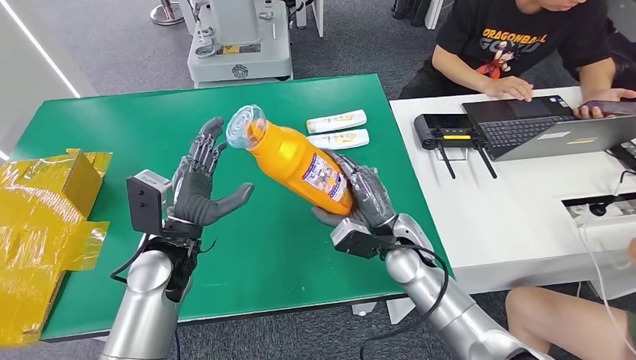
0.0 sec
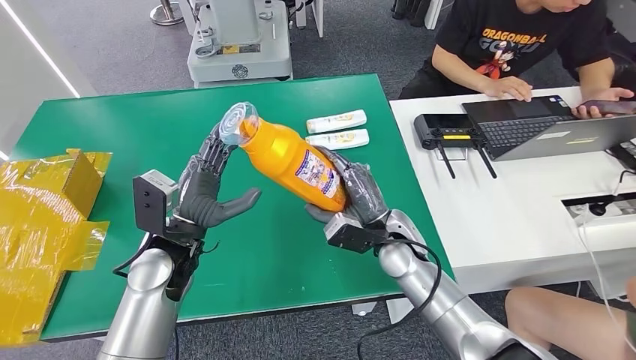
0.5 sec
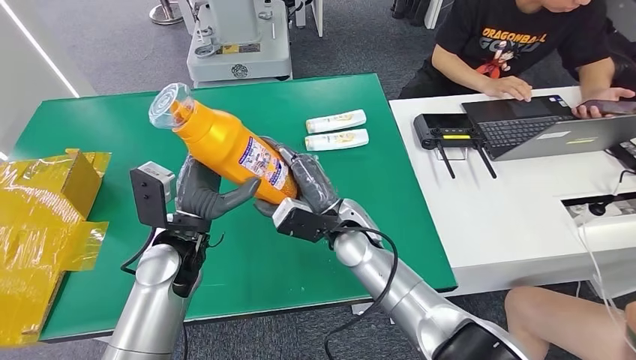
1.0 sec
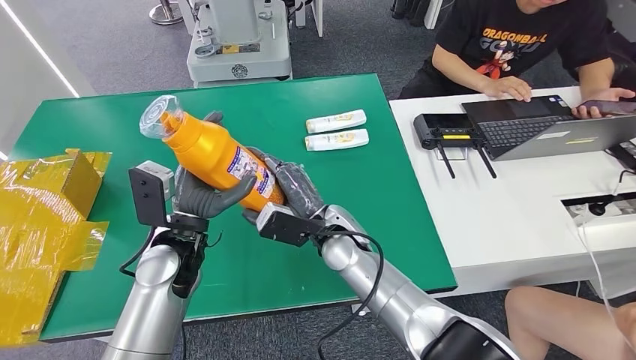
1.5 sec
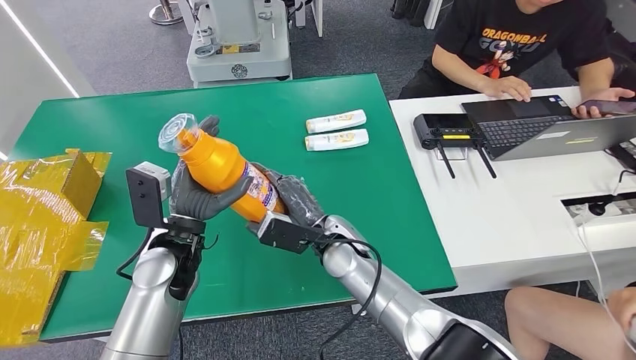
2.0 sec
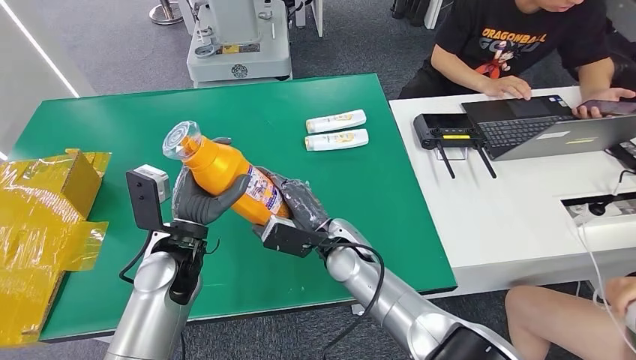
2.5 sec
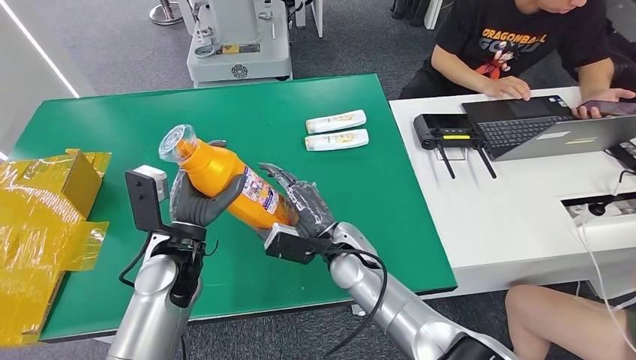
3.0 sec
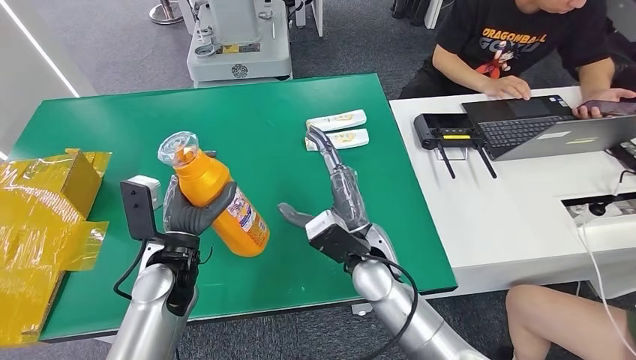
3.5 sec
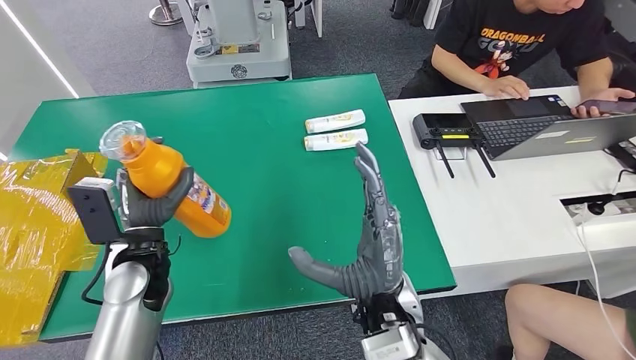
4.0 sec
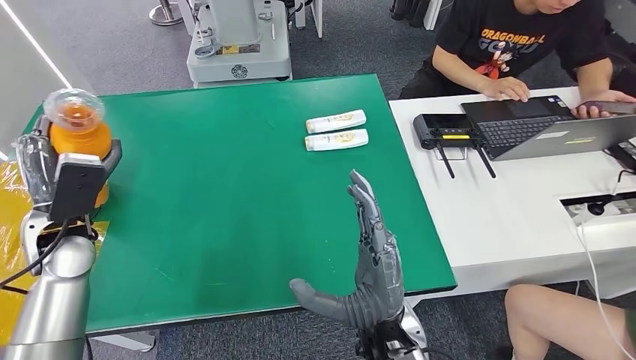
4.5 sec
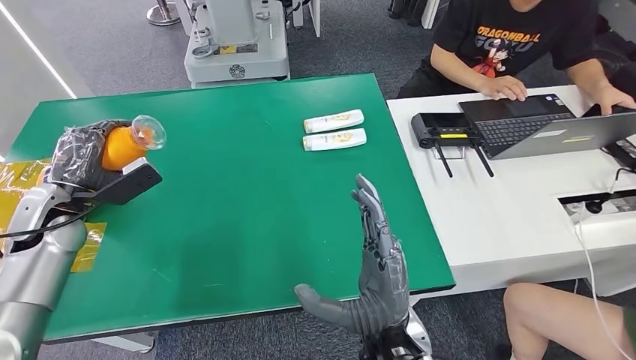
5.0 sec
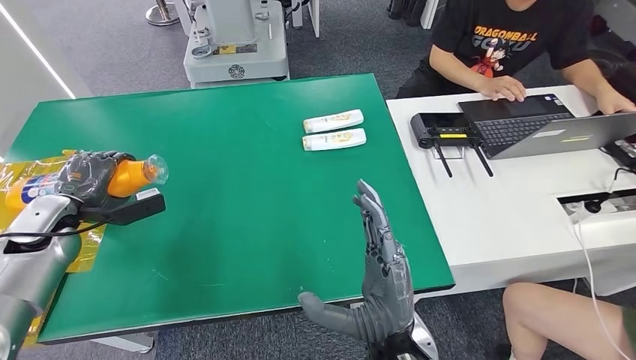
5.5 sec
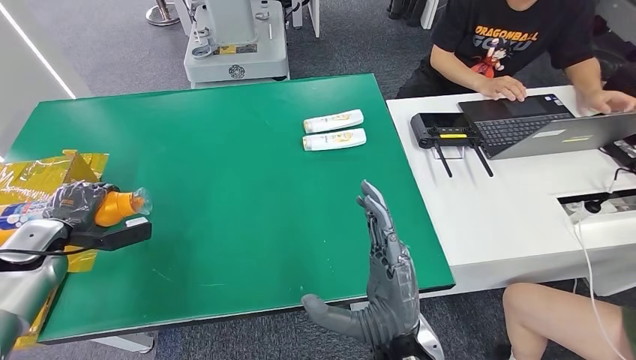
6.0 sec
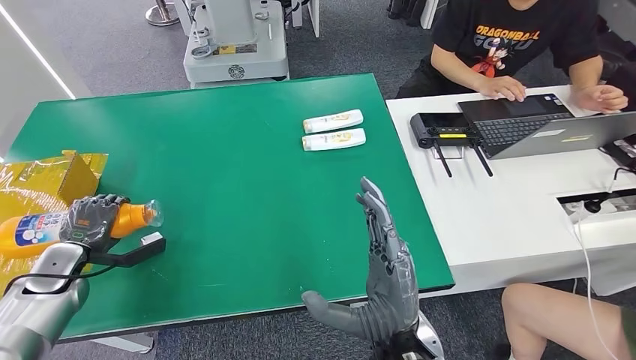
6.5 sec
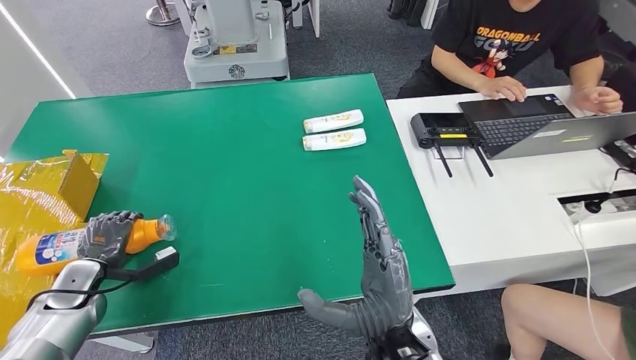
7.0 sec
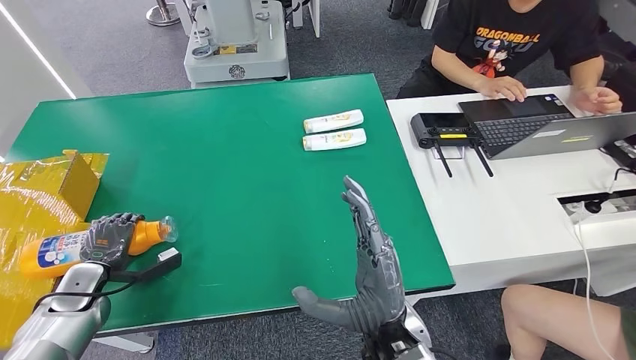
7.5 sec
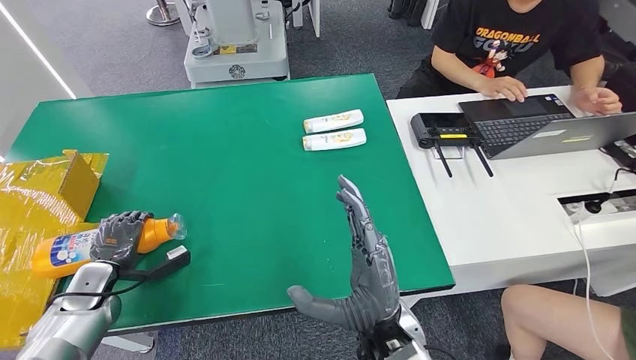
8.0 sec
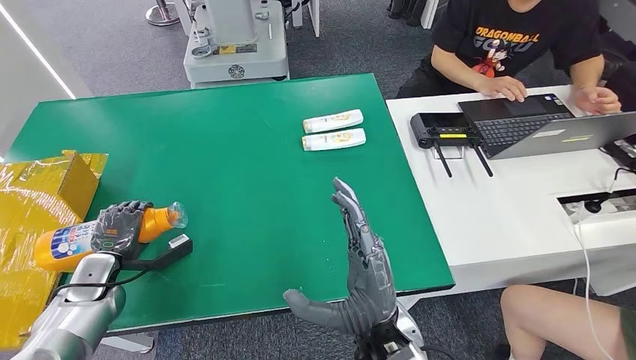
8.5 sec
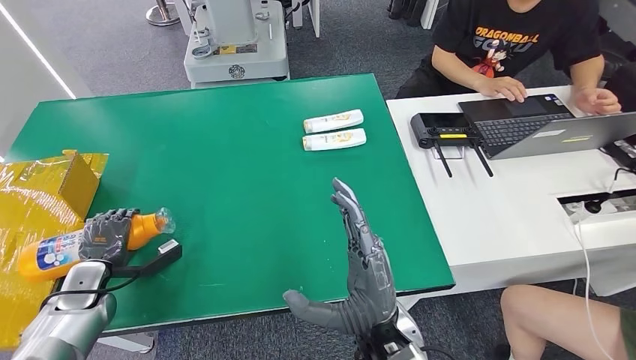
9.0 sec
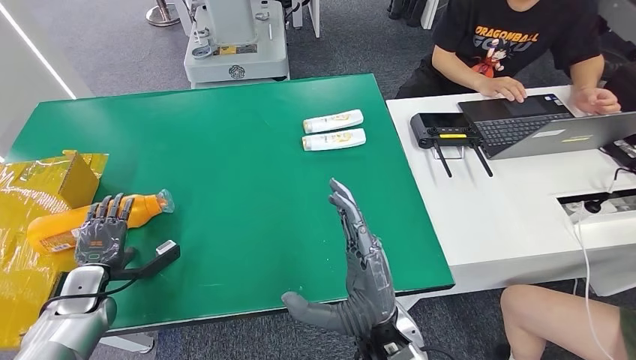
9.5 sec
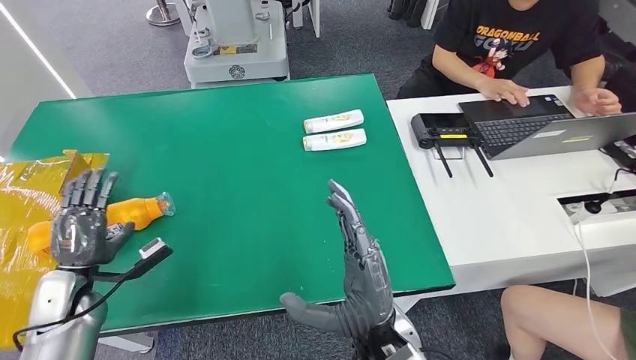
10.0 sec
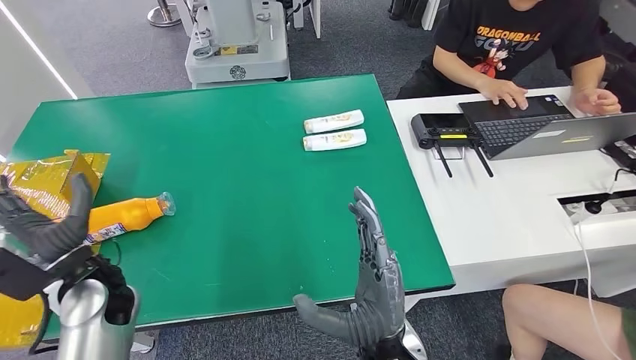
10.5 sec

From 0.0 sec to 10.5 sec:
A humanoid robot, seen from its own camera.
Step, from 0.0 sec to 10.5 sec: Turn the bottle to the front side.
From 0.0 sec to 2.0 sec: The right hand heads to the left, covering about 10 cm.
From 2.0 sec to 4.0 sec: The left hand ends up about 5 cm from where it was. Meanwhile the right hand is displaced backward and upward by approximately 15 cm.
From 6.5 sec to 8.5 sec: The left hand moves to the right, about 5 cm.
From 8.5 sec to 10.5 sec: The left hand shifts roughly 20 cm upward, to the right and backward.
